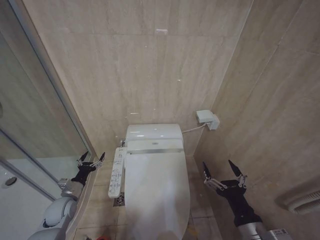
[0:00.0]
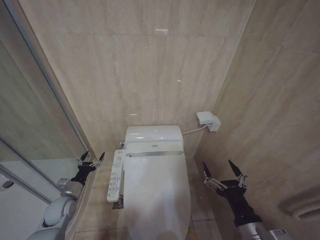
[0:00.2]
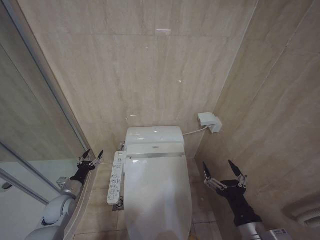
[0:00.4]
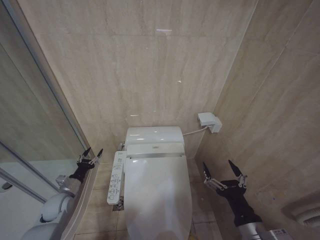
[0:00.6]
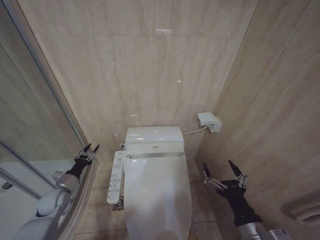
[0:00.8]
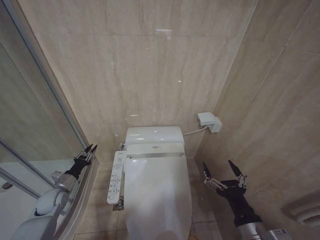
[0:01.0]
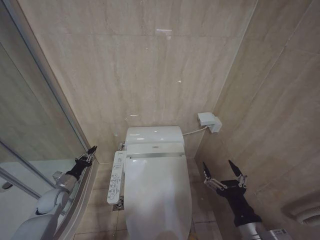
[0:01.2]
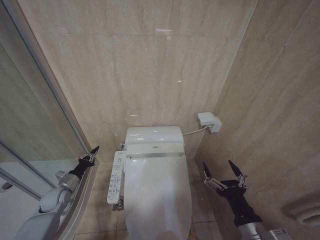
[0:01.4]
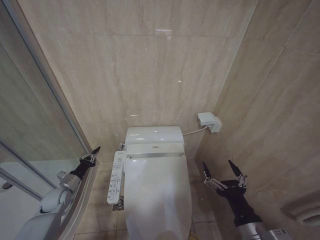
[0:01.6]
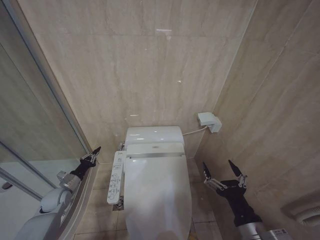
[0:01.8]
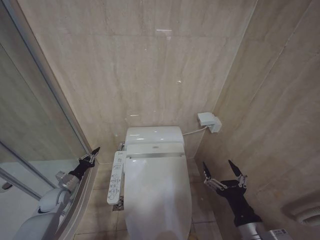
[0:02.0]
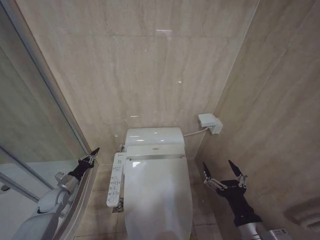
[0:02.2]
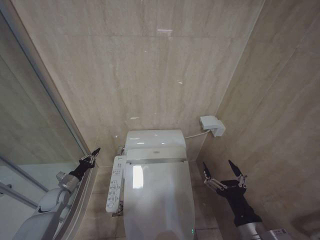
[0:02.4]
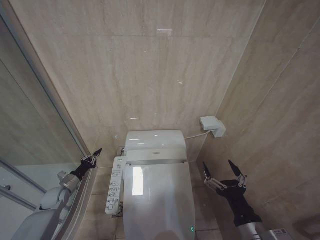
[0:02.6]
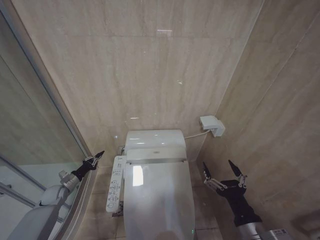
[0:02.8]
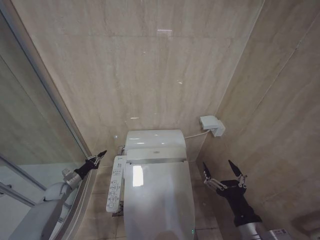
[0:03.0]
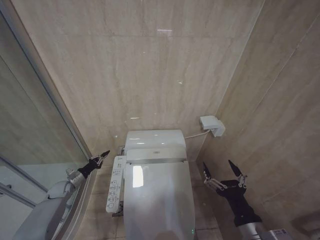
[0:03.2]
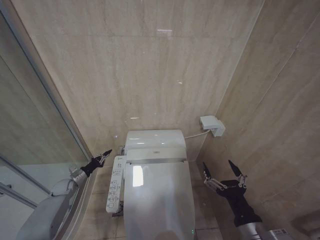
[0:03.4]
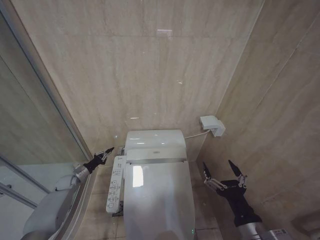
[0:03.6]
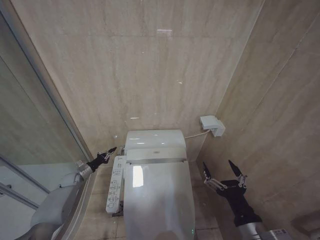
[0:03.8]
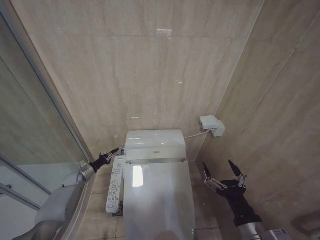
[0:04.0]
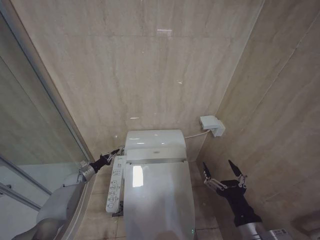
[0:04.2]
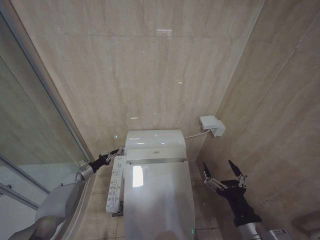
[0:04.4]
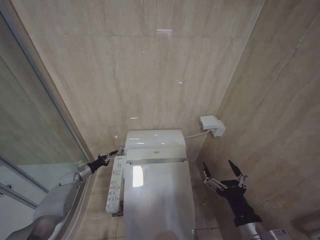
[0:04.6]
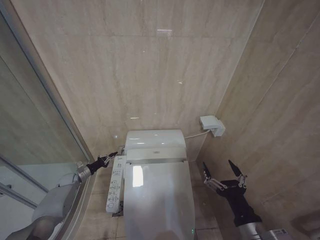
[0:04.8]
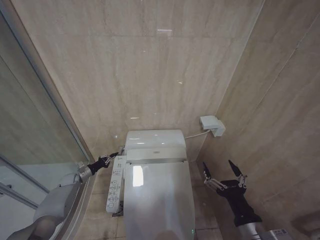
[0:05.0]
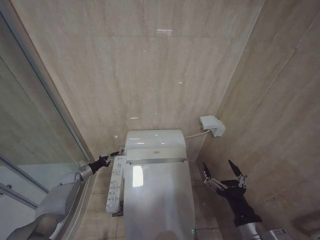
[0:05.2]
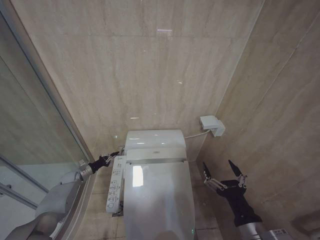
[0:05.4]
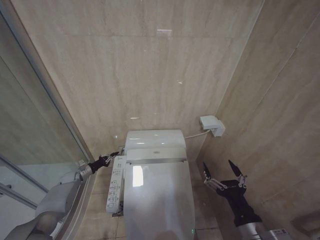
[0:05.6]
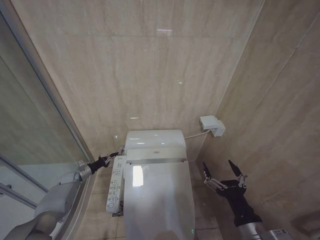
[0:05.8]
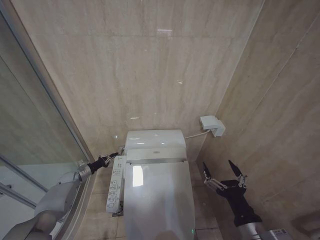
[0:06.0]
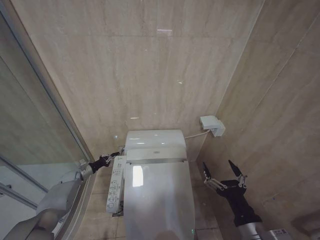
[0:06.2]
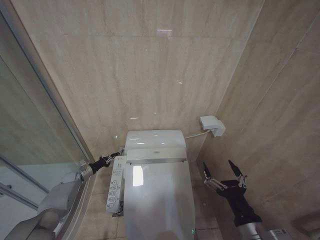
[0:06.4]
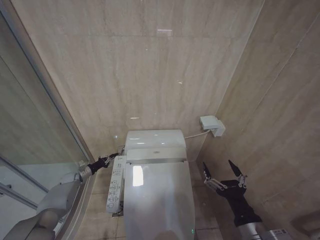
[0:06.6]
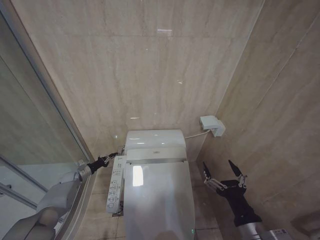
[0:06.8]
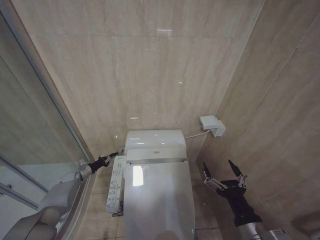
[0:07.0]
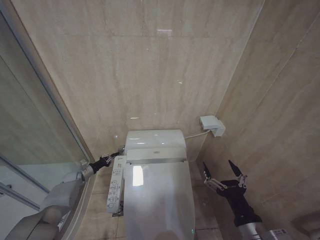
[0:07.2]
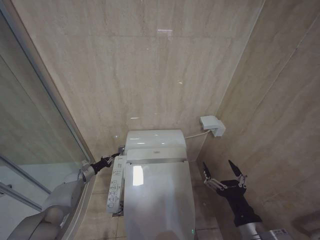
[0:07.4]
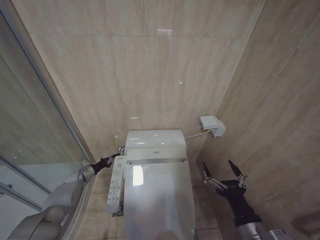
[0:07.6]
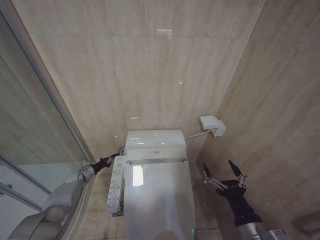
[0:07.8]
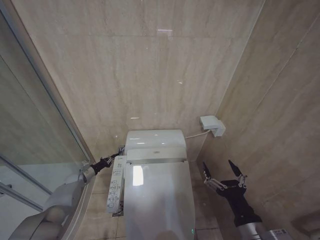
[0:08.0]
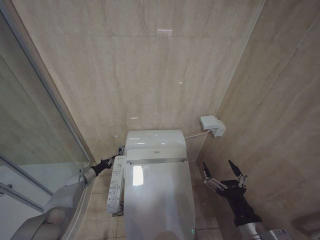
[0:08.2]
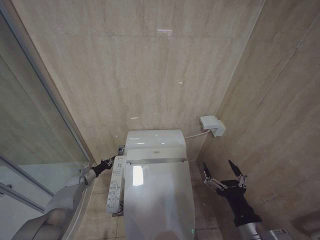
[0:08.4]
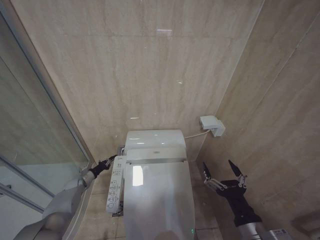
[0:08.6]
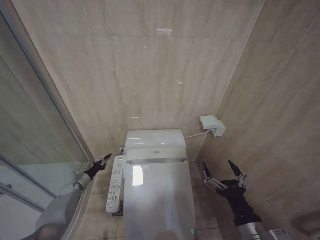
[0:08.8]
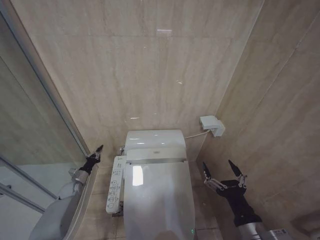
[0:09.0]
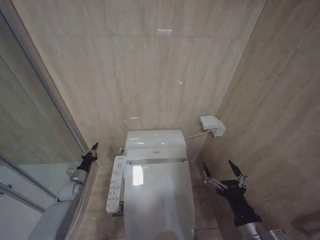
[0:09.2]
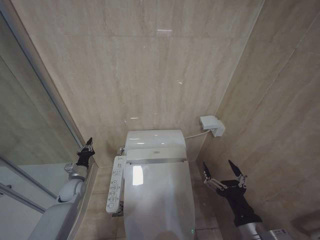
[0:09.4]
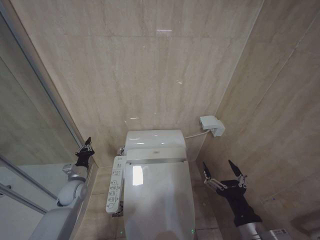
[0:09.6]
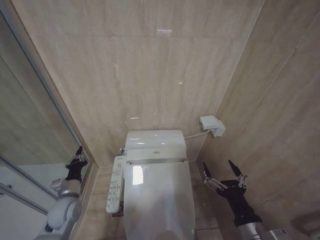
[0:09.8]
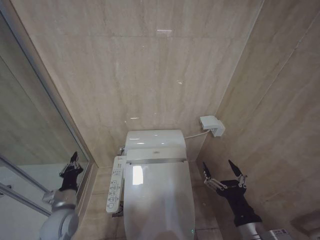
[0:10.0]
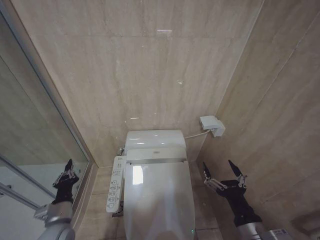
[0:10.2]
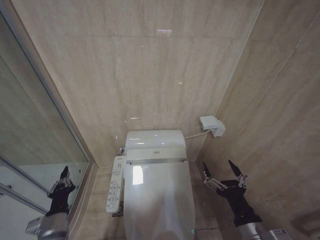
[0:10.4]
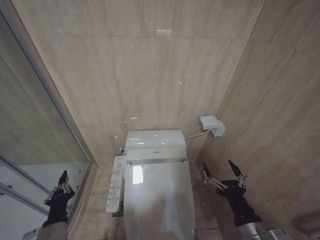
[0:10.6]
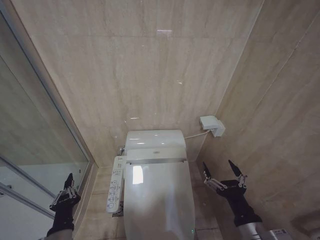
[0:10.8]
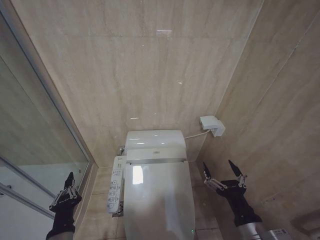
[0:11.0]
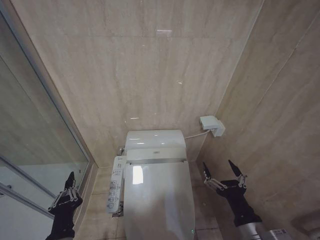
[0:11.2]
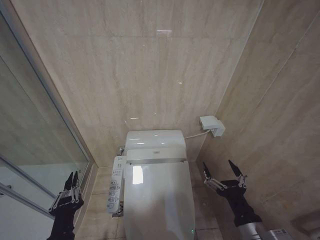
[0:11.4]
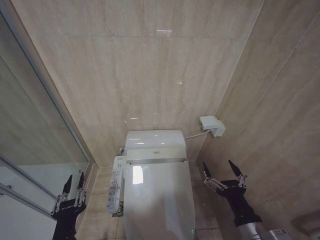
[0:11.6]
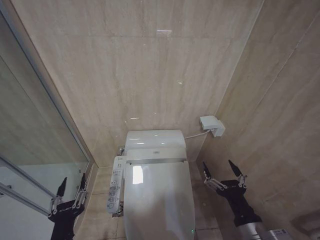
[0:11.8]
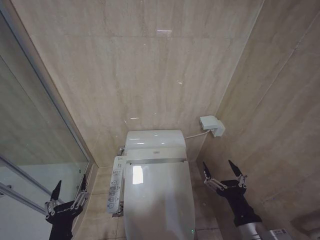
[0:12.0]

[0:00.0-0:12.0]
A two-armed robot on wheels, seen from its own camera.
Task of the whole recording: Open the toilet lid, clean the toilet bowl with a toilet brush, close the toilet lid, and flush.
0:00.0 to 0:01.6: The left gripper moves about 5 cm, and closes its fingers.
0:01.6 to 0:03.0: The left gripper changes place by roughly 5 cm.
0:03.0 to 0:04.4: The left gripper moves forward, roughly 5 cm.
0:04.4 to 0:07.6: The grippers stay close to where they were, moving slightly.
0:07.6 to 0:09.0: The left gripper moves some 5 cm.
0:09.0 to 0:10.4: The left gripper shifts about 30 cm backward, upward and to the right.
0:10.4 to 0:12.0: The left gripper travels backward, to the right and upward by some 15 cm, and opens its fingers.

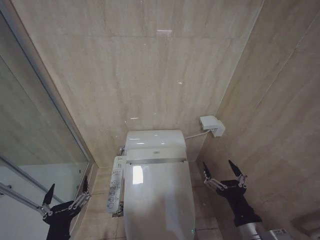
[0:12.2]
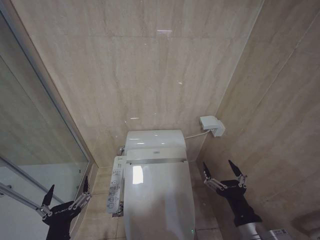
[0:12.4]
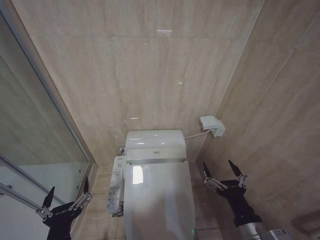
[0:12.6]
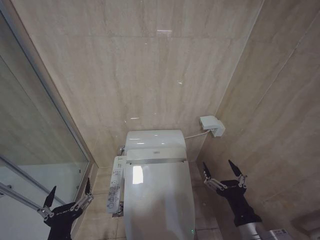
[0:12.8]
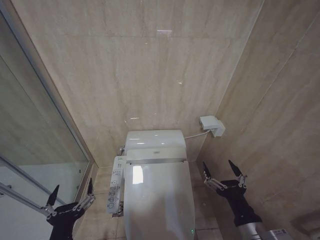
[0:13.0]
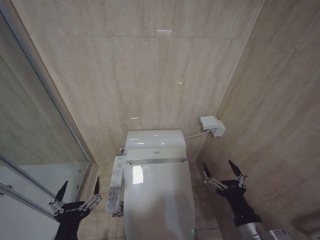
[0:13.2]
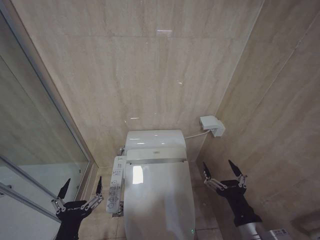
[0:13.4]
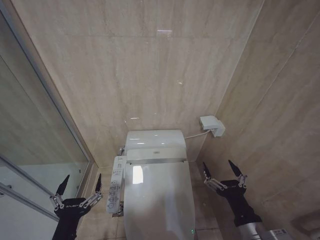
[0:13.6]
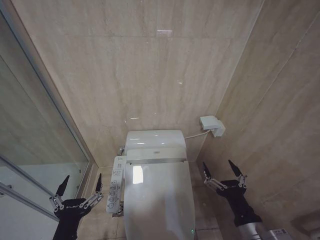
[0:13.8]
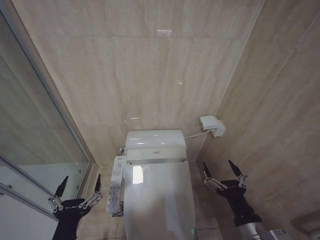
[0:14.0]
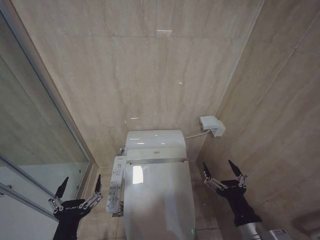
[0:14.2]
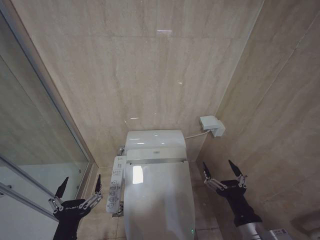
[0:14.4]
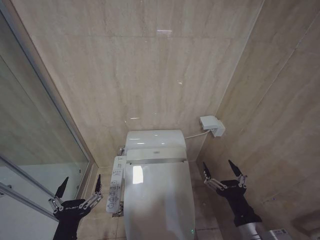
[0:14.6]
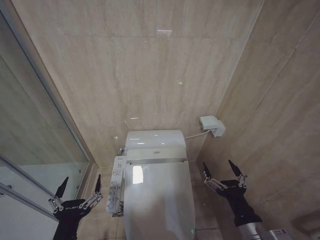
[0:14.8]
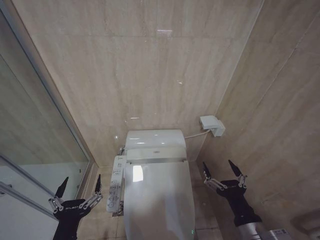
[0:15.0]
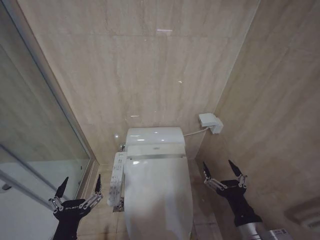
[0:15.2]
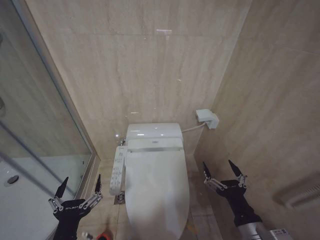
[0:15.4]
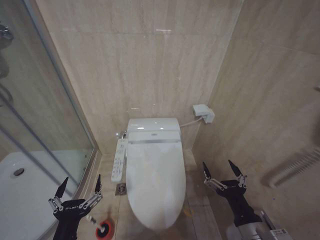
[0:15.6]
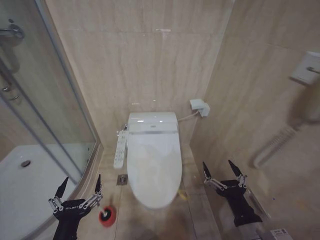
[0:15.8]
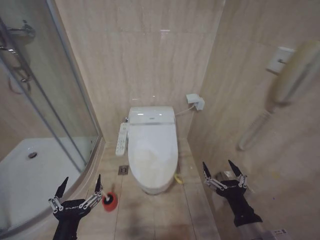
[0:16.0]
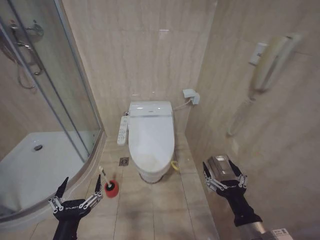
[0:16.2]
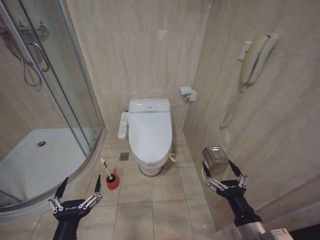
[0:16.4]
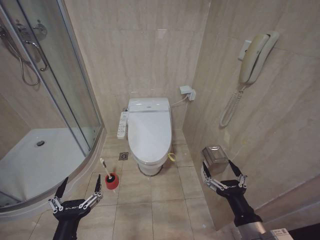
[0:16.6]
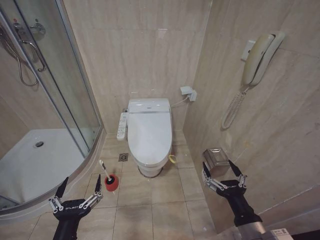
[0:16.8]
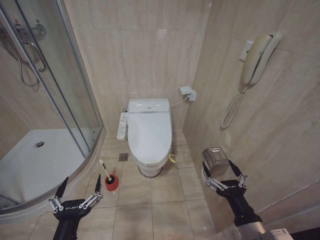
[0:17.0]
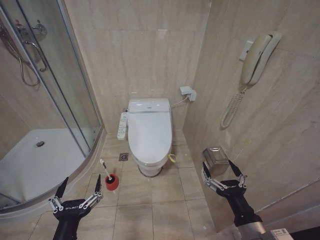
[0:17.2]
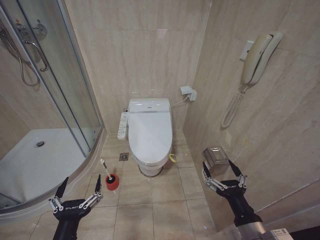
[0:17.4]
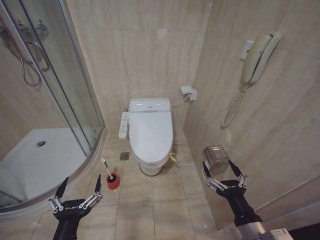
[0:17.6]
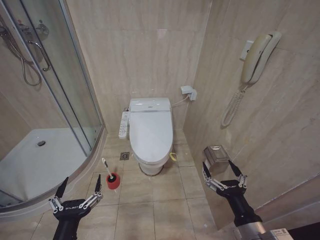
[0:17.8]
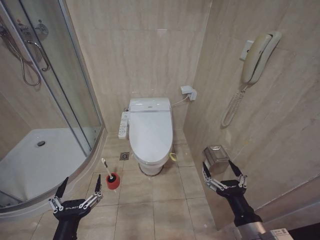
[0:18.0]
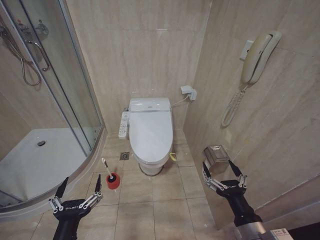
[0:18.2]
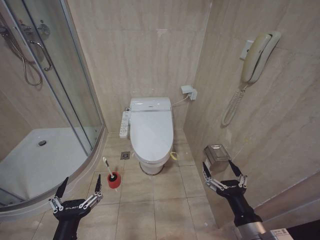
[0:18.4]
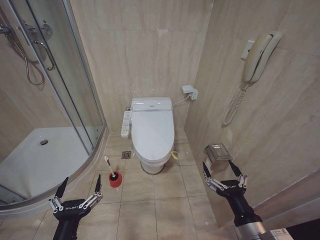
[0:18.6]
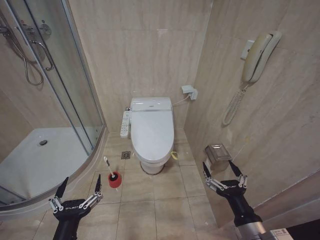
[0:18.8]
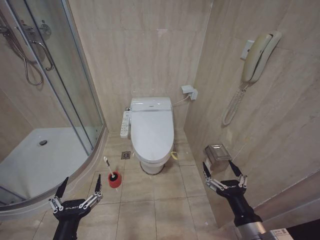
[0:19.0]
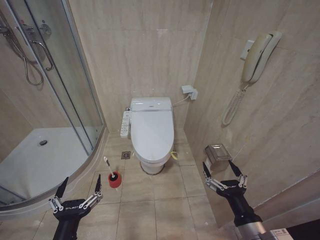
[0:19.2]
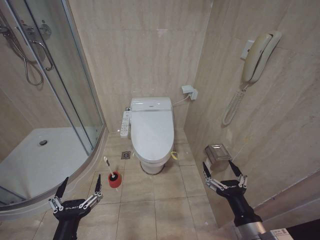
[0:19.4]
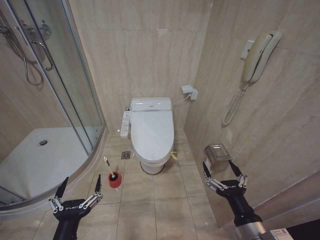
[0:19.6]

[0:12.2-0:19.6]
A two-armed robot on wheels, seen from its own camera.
Task of the whole recording: Open the toilet lid, clean the toilet bowl with a toilet brush, close the toilet lid, and flush.
0:12.2 to 0:13.6: The grippers make only small movements.
0:13.6 to 0:15.2: Both grippers stay about where they are.
0:16.6 to 0:19.6: The two grippers keep their place.
